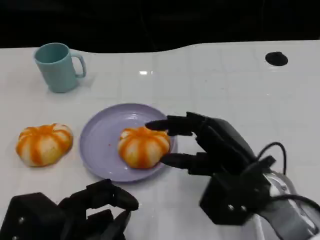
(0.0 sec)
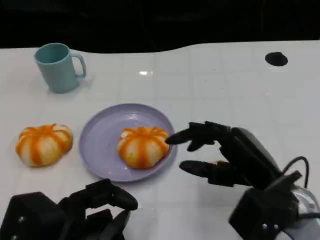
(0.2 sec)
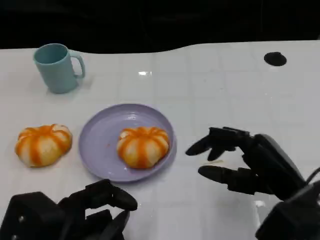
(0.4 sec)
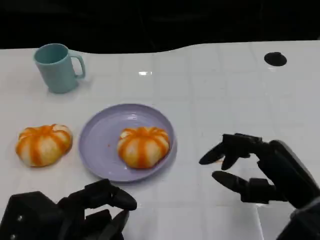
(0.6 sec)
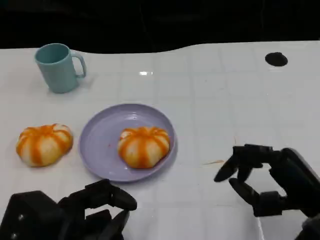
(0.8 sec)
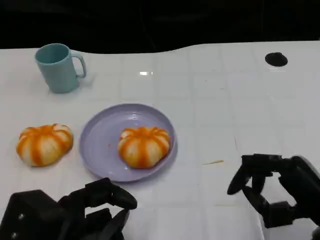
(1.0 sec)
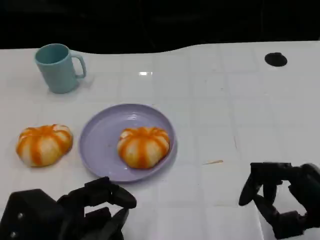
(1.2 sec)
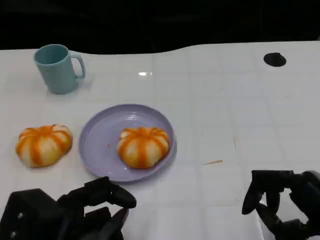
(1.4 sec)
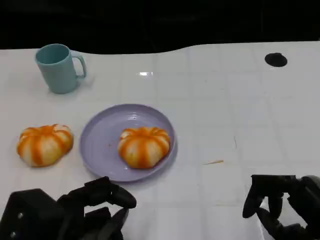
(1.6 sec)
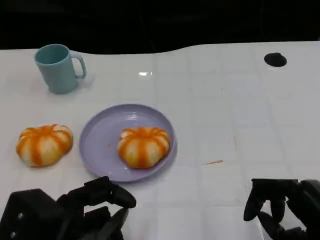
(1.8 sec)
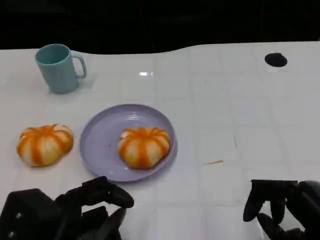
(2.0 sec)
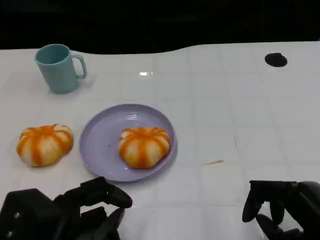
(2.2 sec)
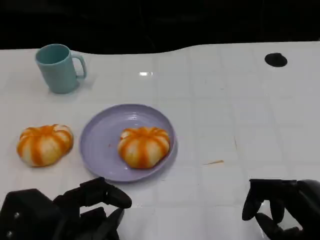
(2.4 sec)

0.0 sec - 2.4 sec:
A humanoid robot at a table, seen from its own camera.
Task of the whole recording: Grasp the bread from the table and place it into the plate.
0.0 sec - 1.2 sec: The right hand shifts approximately 15 cm to the right and backward.
1.2 sec - 2.4 sec: The hands stay close to where they were, moving slightly.

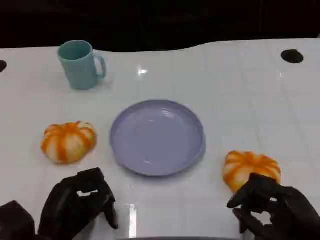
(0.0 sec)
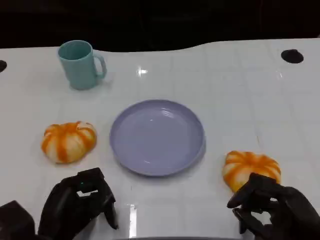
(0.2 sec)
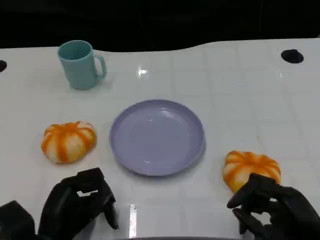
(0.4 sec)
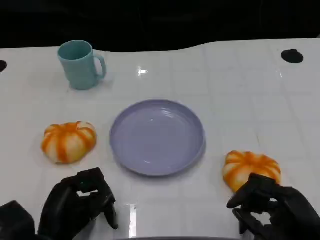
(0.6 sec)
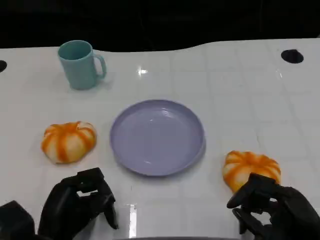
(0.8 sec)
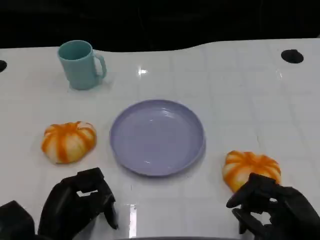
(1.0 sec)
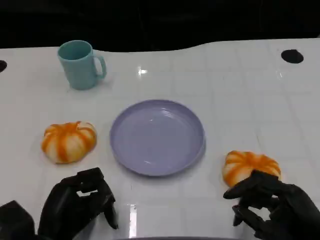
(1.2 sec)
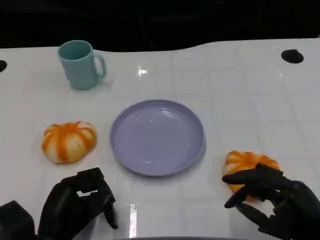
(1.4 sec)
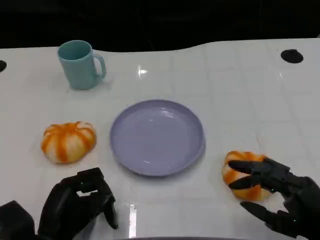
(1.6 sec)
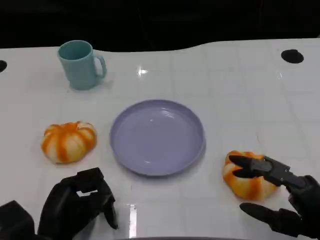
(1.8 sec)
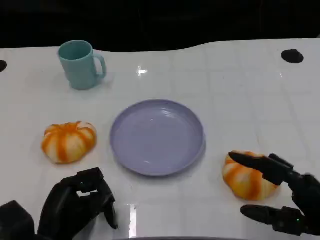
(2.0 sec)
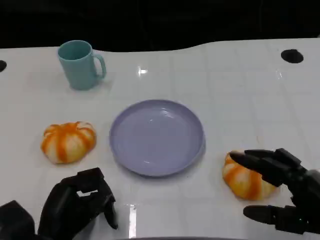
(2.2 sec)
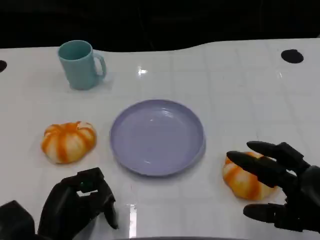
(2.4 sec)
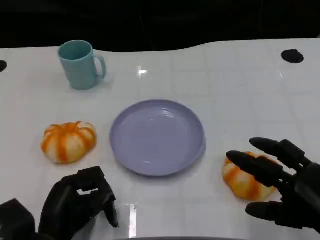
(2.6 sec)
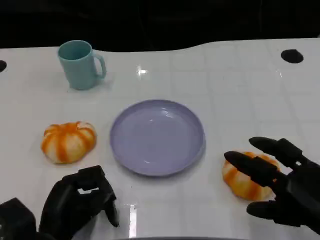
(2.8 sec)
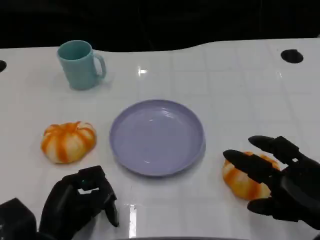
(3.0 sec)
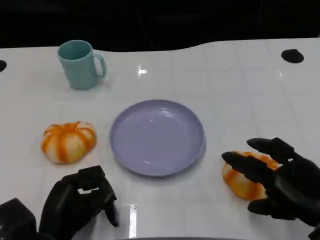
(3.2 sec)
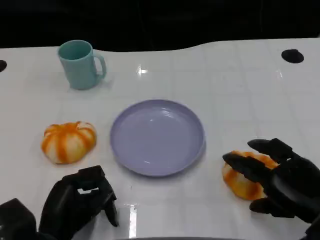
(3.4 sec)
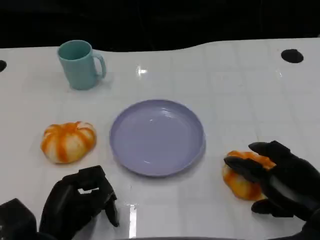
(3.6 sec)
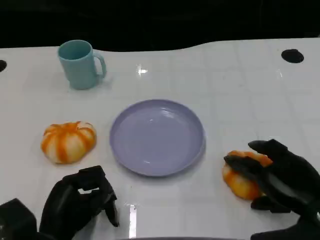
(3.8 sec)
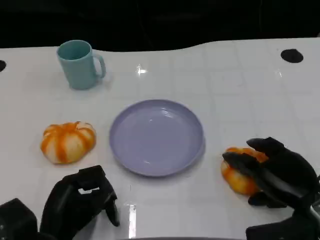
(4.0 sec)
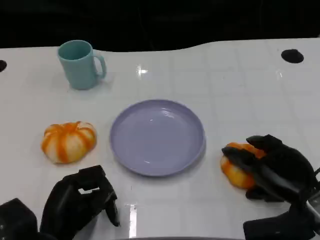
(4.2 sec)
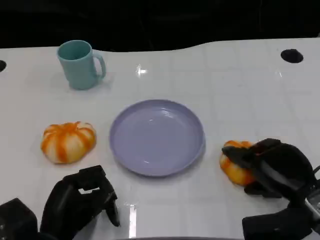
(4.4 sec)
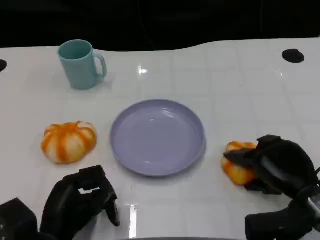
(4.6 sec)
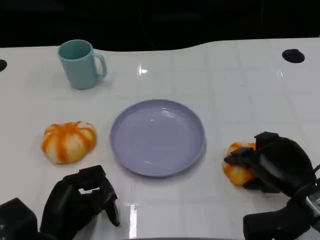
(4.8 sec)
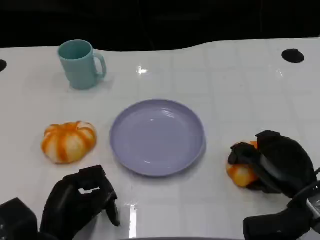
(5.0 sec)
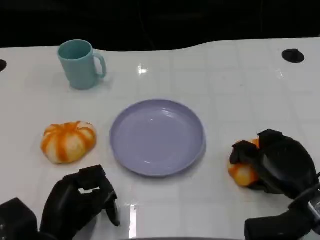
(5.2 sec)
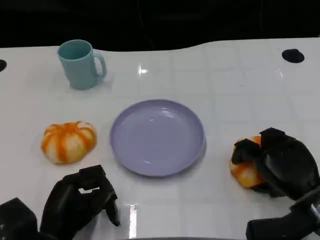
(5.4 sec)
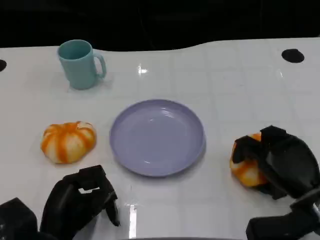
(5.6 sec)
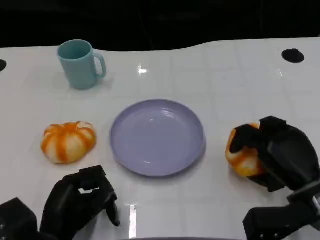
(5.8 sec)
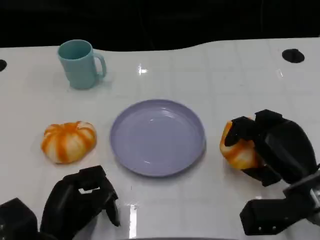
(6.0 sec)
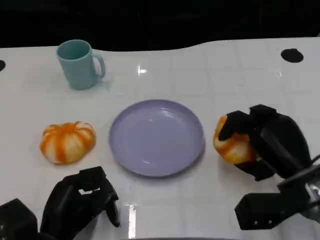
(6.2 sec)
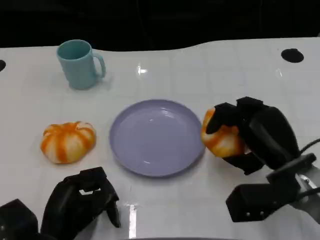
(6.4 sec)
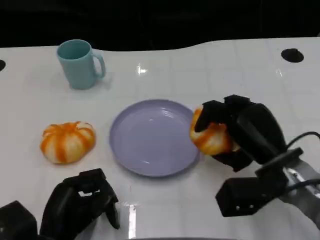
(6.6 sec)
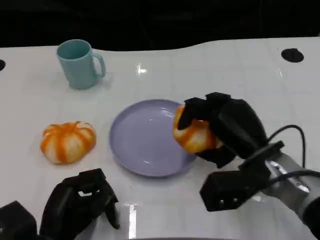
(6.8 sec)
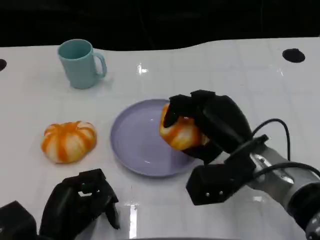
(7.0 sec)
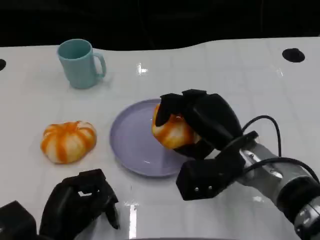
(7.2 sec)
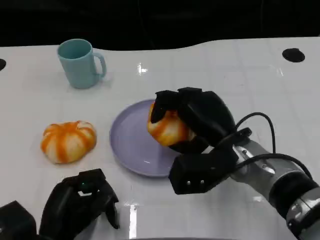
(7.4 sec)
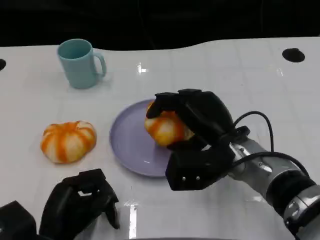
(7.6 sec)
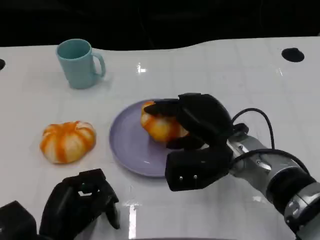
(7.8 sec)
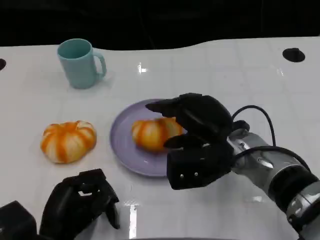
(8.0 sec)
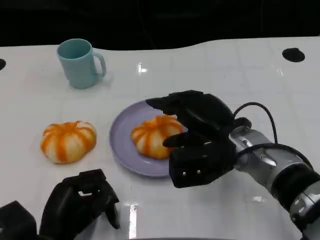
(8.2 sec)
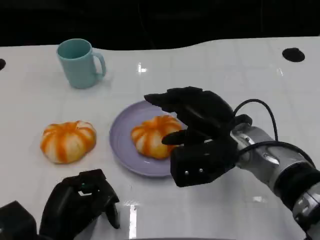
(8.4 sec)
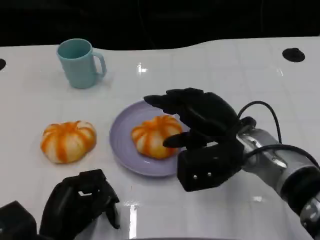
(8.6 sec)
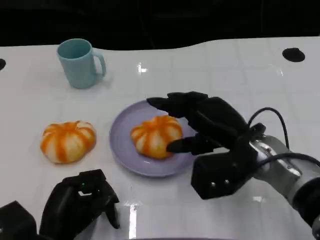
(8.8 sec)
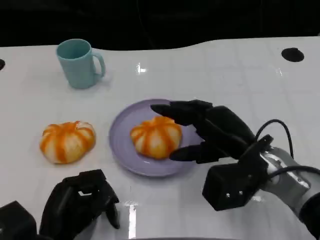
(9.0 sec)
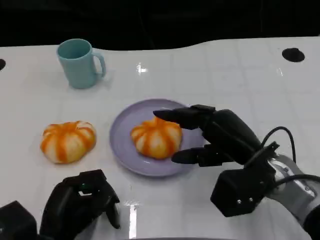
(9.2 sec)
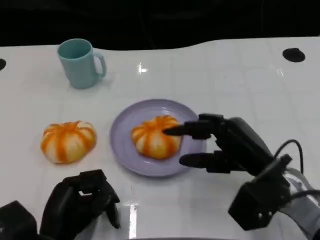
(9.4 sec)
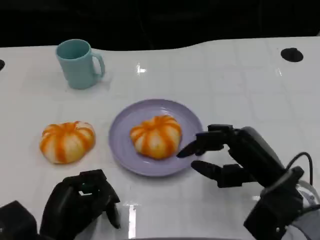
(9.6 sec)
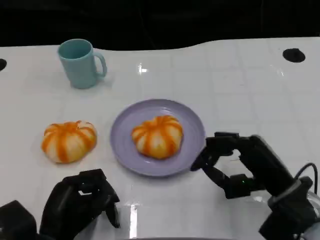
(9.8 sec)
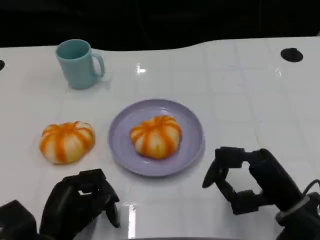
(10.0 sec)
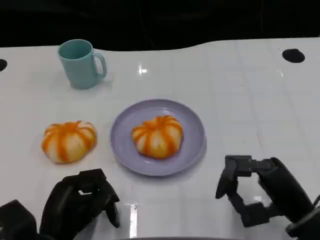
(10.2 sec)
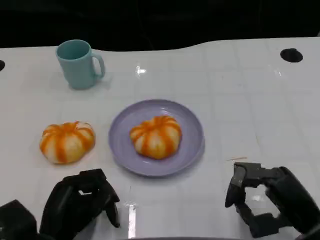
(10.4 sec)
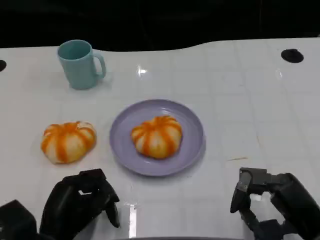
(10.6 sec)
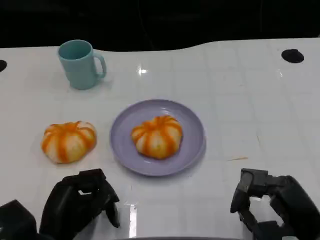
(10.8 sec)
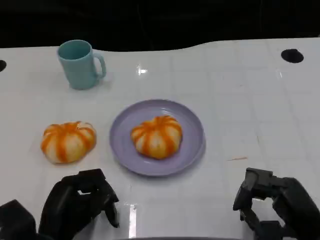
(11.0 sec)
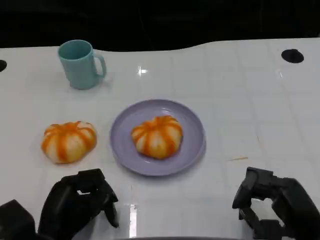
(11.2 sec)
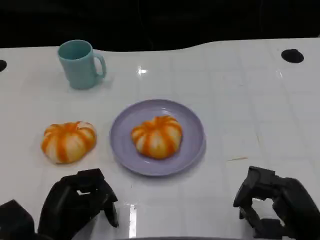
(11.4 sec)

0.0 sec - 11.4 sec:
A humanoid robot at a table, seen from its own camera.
Task of the whole recording: Grasp the bread from the table and place it into the plate.
0.0 sec - 1.4 sec: The hands stay close to where they were, moving slightly.
2.8 sec - 4.2 sec: The right hand travels forward by some 5 cm.
5.6 sec - 7.2 sec: The right hand travels to the left and upward by roughly 15 cm.
7.2 sec - 8.6 sec: There are only small adjustments of the hands.
8.6 sec - 10.0 sec: The right hand travels backward and to the right by roughly 10 cm.
10.0 sec - 11.4 sec: The right hand changes place by some 5 cm.

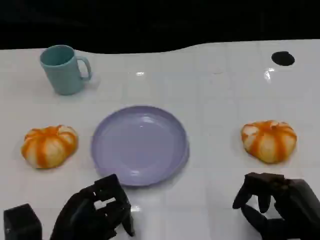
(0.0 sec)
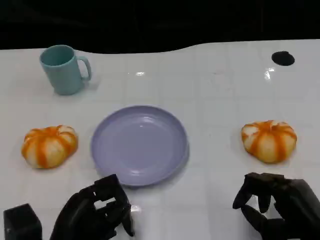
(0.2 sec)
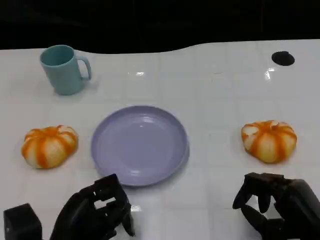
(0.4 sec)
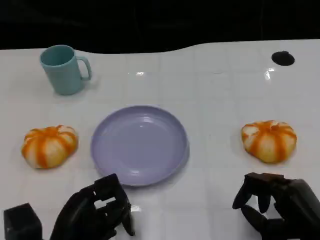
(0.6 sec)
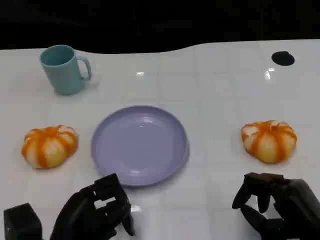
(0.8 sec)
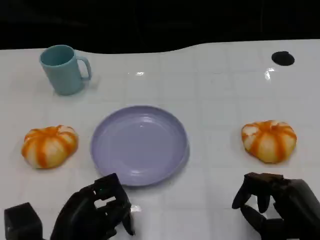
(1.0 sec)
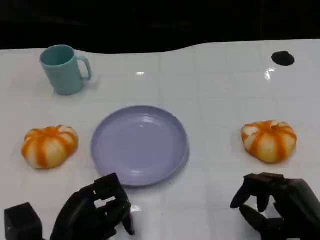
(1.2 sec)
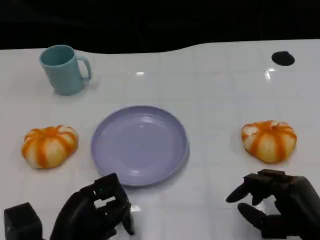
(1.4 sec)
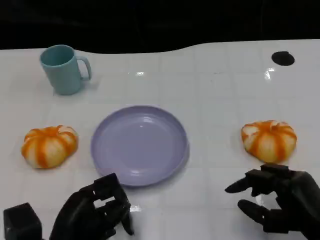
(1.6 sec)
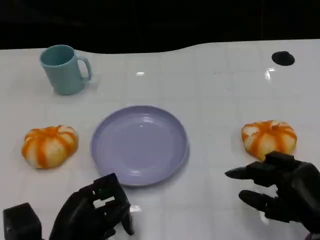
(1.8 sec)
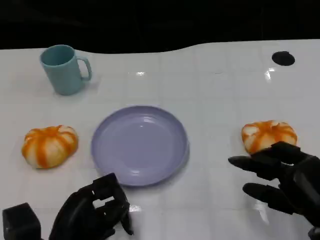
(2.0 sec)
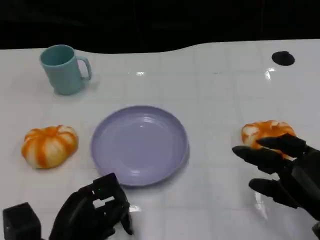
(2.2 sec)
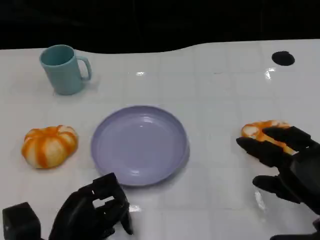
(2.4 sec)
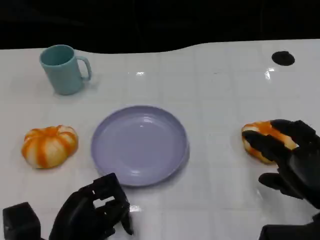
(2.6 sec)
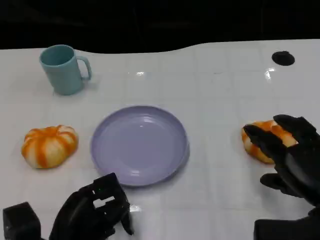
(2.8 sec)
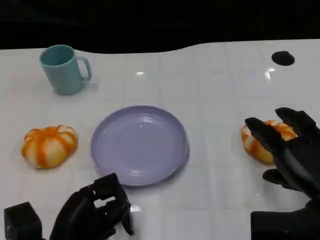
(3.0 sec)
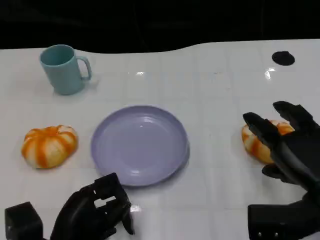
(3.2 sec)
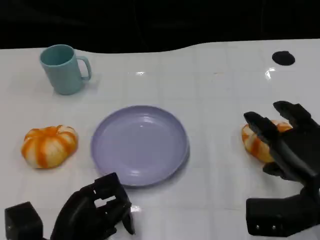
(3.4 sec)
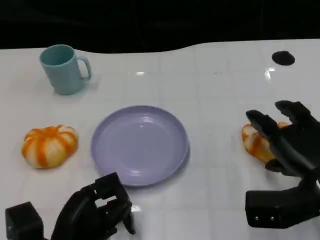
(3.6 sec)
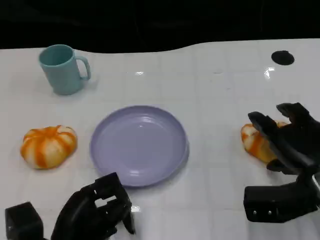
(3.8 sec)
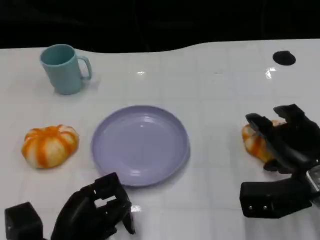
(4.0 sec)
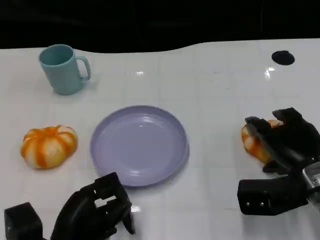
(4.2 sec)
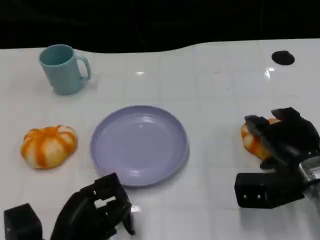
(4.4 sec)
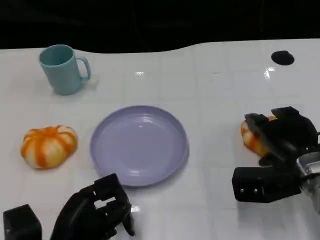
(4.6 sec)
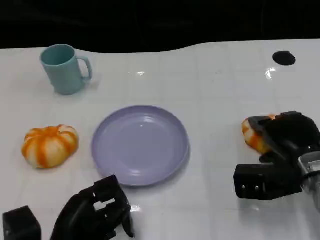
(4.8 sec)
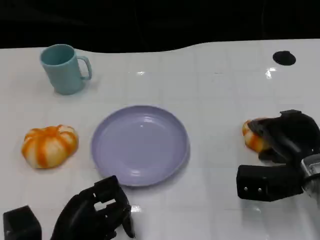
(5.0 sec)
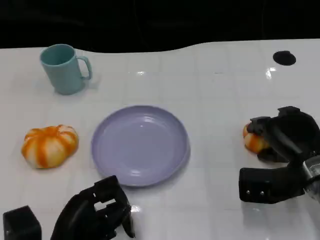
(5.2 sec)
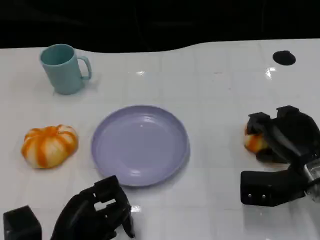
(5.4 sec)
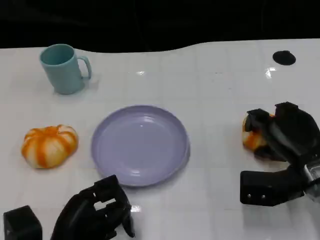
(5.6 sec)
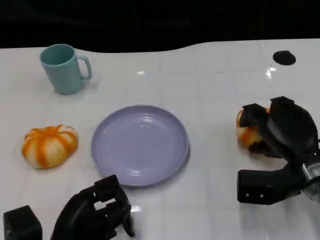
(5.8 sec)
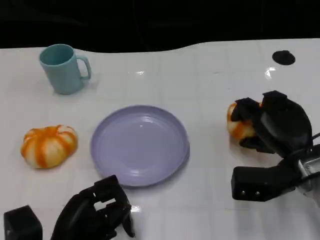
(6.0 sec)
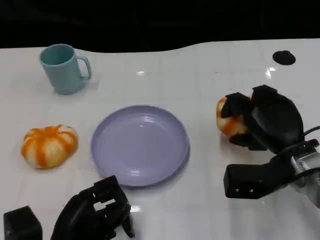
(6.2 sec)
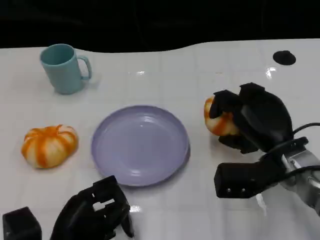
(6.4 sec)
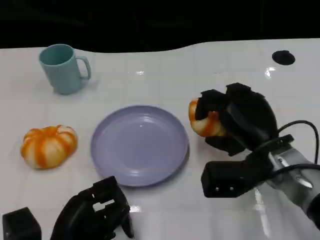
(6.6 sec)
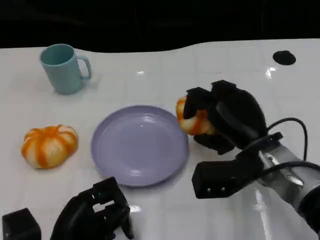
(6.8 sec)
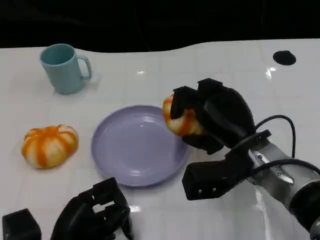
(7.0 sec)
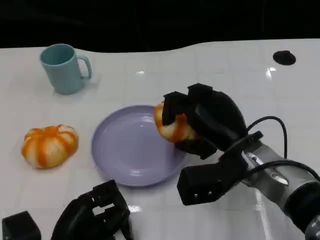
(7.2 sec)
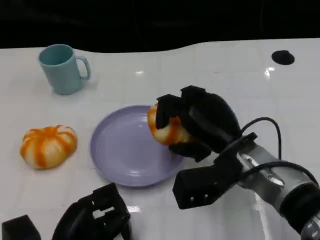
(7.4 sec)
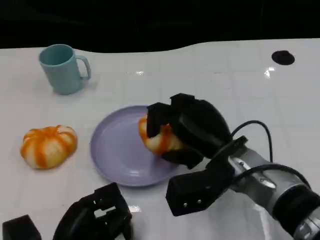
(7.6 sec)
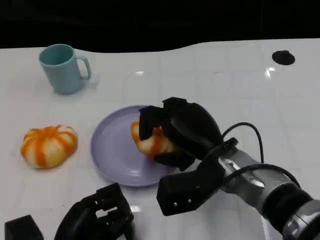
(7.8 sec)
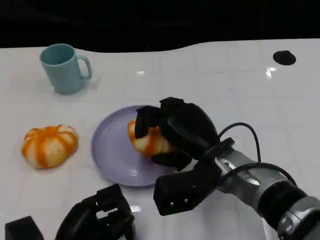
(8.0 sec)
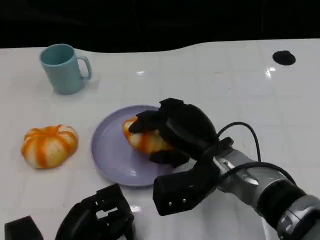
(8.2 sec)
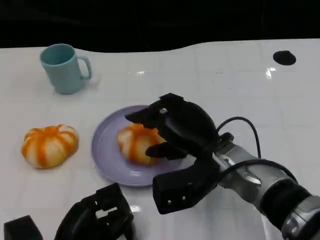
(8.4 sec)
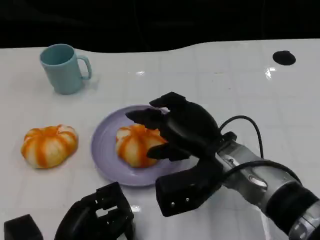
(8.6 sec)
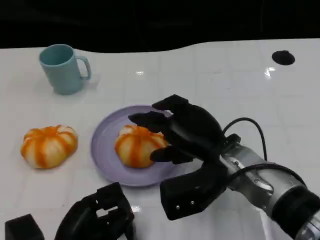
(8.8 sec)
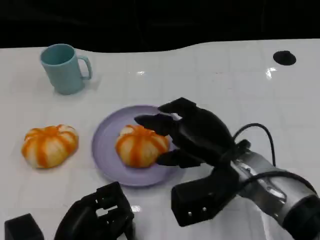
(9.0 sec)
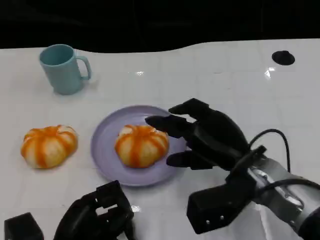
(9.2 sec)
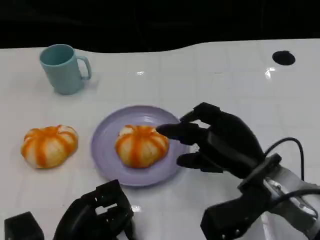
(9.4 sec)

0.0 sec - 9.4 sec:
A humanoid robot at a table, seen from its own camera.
Task of the whole recording: Grasp the bread from the table and place it into the plate.
0.0 sec - 1.6 sec: The hands stay close to where they were, moving slightly.
1.6 sec - 3.2 sec: The right hand is displaced upward by some 5 cm.
3.2 sec - 4.8 sec: The right hand heads forward, covering approximately 5 cm.
6.2 sec - 7.8 sec: The right hand is displaced to the left by about 10 cm.
7.8 sec - 9.4 sec: The right hand travels to the right by about 5 cm.
